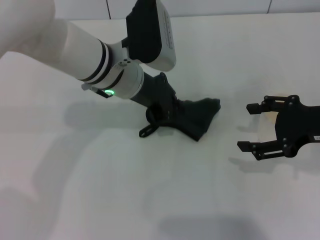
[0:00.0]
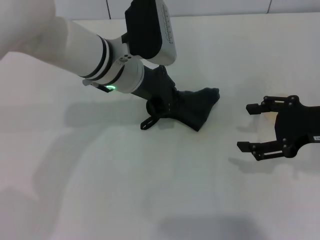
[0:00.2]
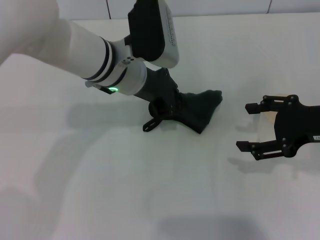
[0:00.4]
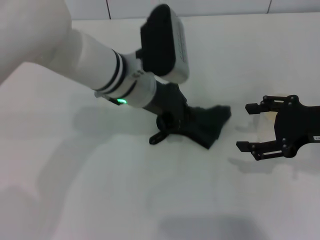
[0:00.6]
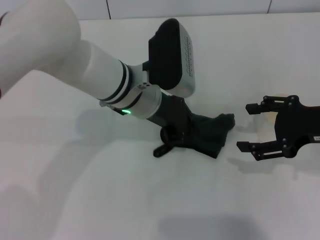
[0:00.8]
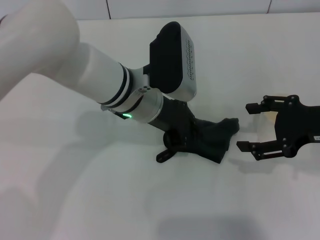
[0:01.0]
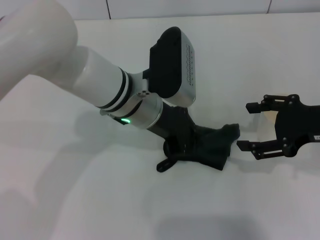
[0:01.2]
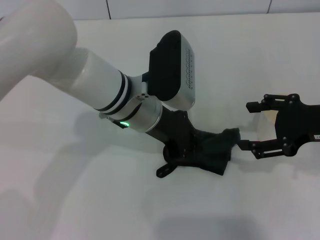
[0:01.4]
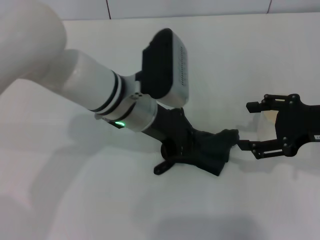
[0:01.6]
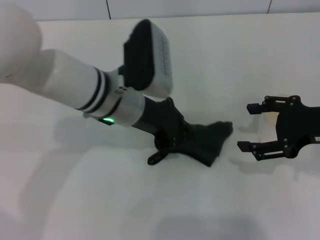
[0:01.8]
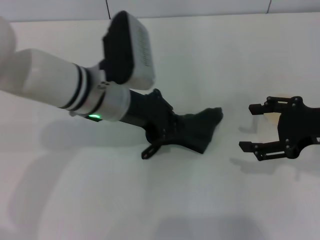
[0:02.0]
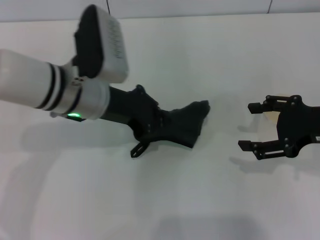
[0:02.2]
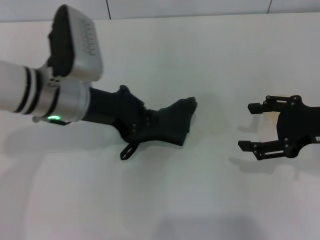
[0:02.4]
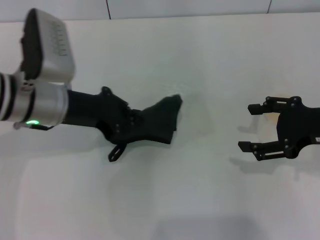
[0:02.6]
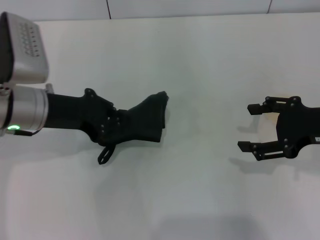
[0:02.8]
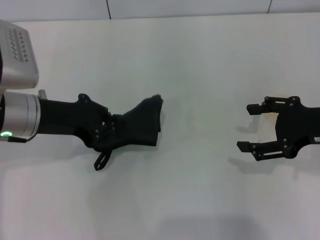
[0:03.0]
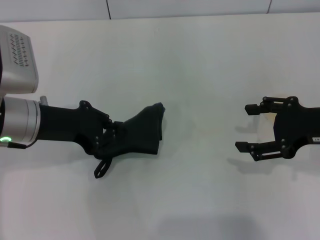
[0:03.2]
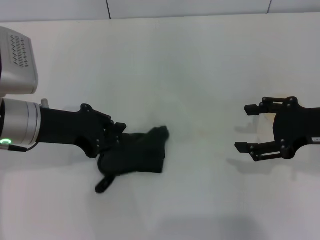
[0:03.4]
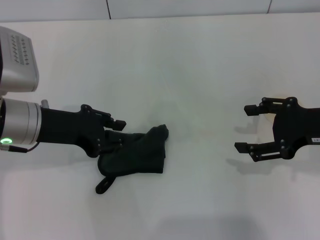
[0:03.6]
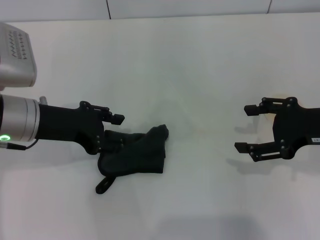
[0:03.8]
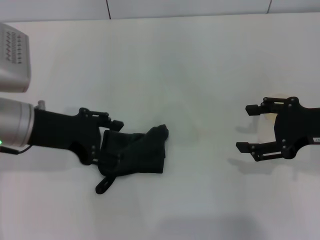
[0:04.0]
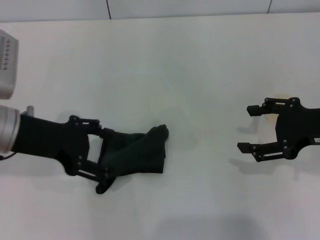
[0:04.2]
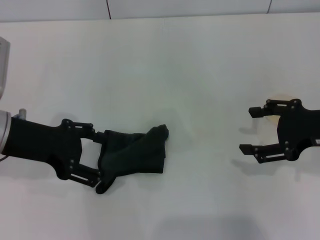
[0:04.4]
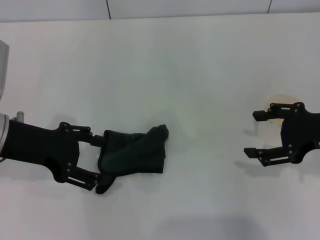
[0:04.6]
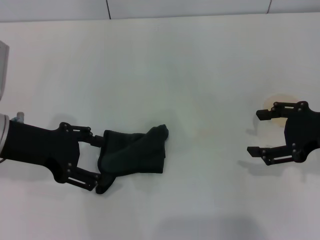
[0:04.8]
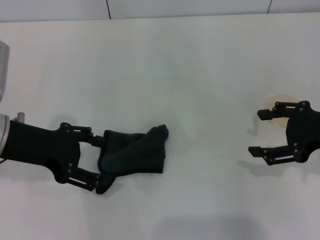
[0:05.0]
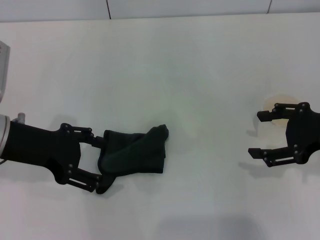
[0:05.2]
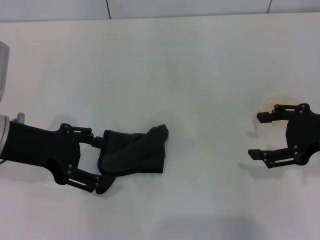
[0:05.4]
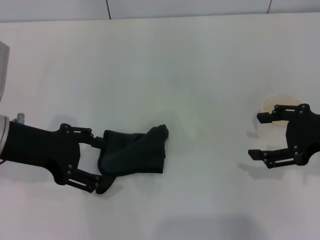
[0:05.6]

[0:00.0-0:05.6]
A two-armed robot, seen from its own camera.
Step, 0:00.0 to 0:03.0: Wipe the stains off the table with the left gripper.
Step, 0:03.2 to 0:03.8: Place the rag on the table with the left gripper.
0:01.4 to 0:02.8: The left gripper is displaced to the left by approximately 15 cm.
0:02.8 to 0:04.2: The left gripper opens up.
0:04.2 to 0:05.6: The two grippers keep their place.

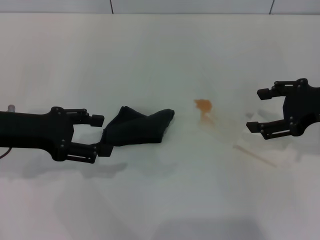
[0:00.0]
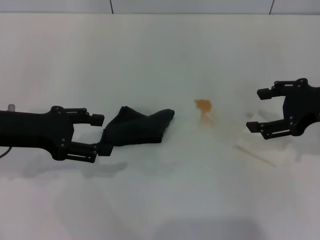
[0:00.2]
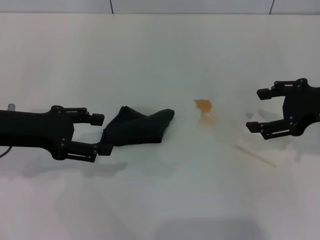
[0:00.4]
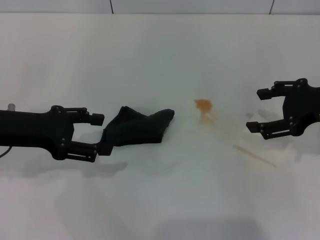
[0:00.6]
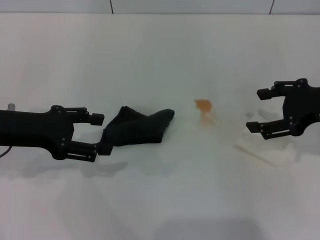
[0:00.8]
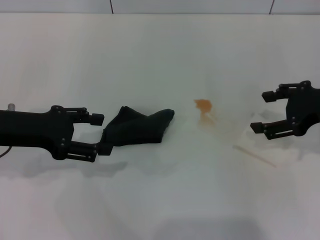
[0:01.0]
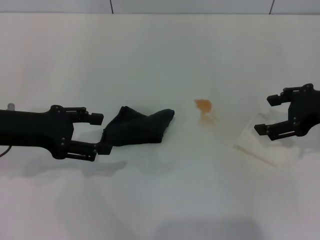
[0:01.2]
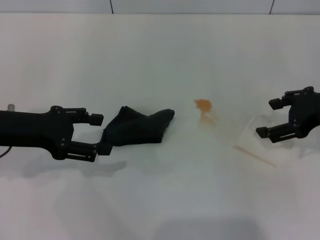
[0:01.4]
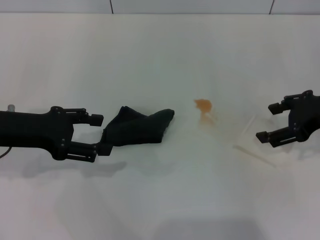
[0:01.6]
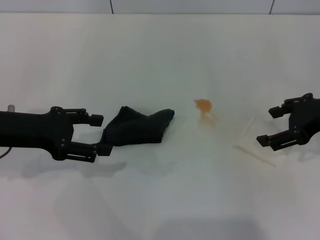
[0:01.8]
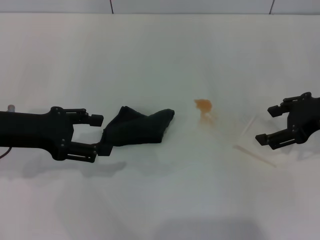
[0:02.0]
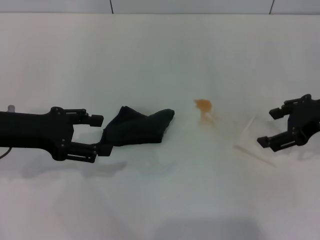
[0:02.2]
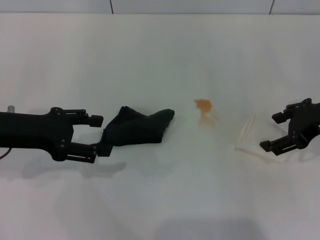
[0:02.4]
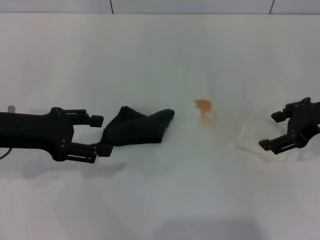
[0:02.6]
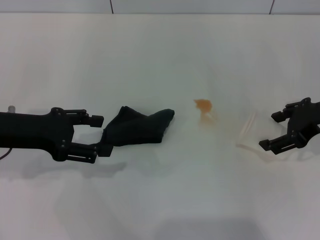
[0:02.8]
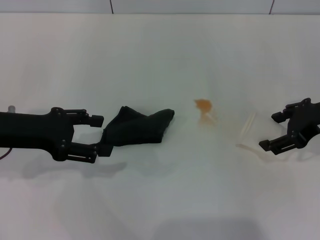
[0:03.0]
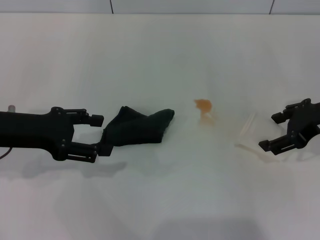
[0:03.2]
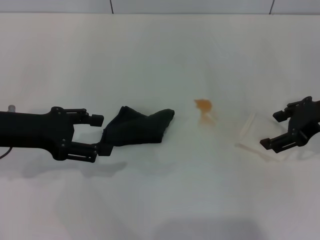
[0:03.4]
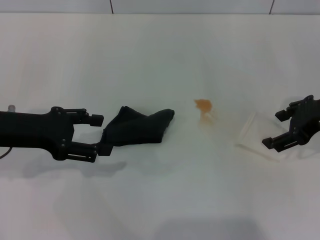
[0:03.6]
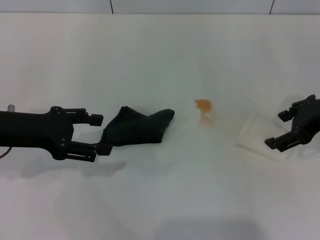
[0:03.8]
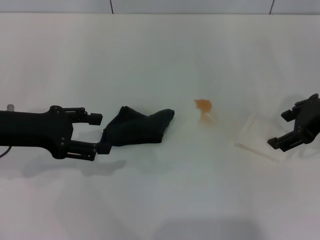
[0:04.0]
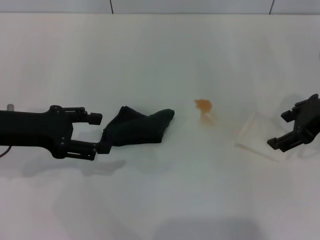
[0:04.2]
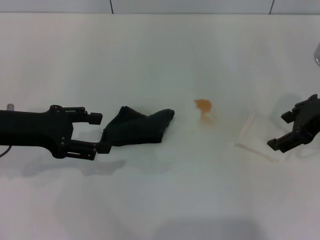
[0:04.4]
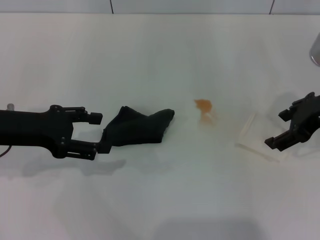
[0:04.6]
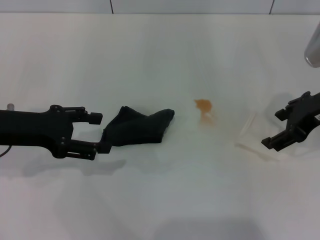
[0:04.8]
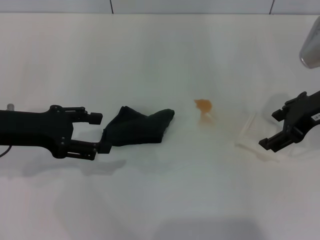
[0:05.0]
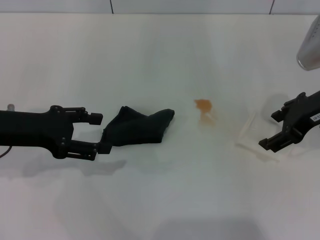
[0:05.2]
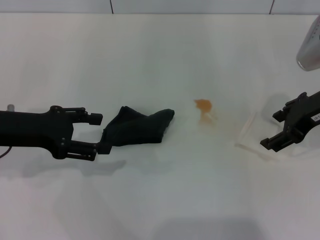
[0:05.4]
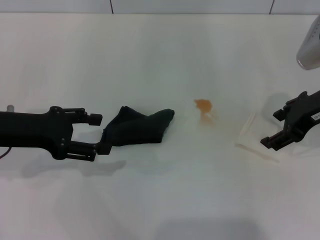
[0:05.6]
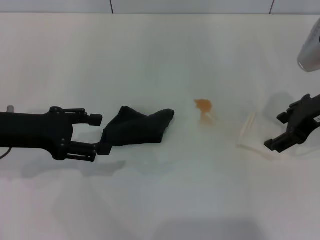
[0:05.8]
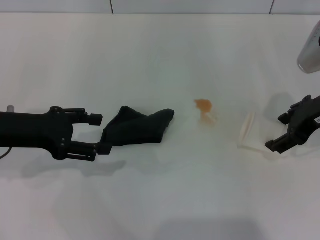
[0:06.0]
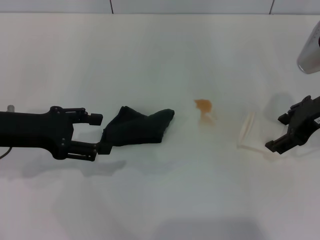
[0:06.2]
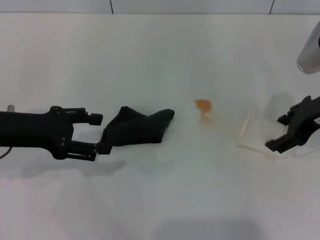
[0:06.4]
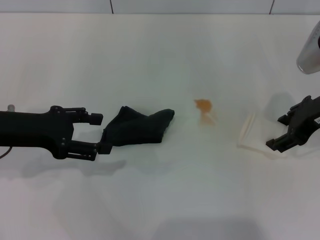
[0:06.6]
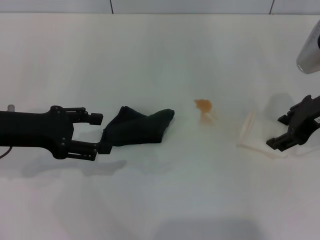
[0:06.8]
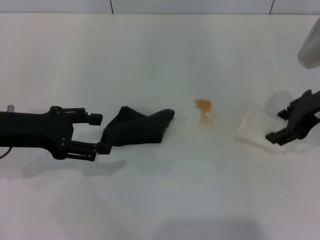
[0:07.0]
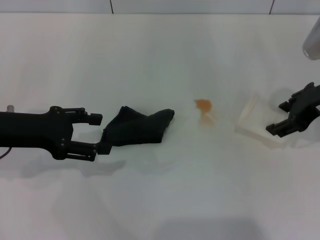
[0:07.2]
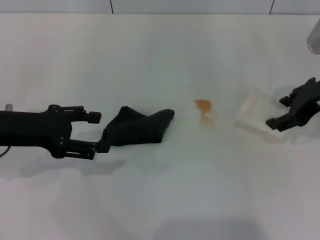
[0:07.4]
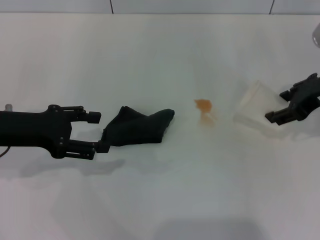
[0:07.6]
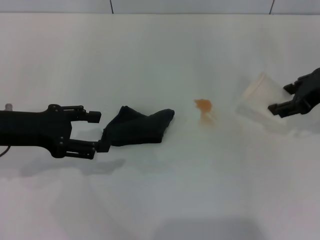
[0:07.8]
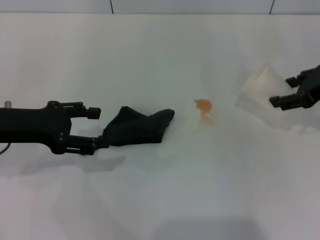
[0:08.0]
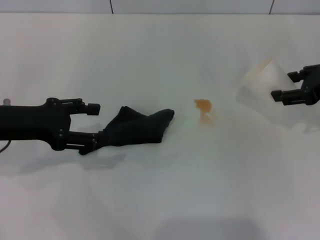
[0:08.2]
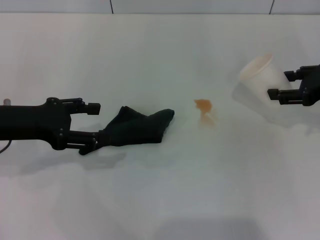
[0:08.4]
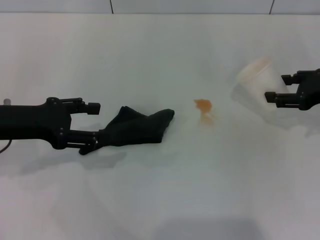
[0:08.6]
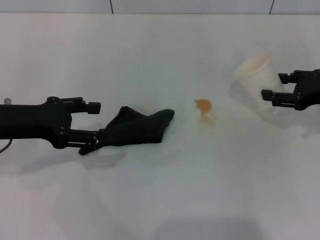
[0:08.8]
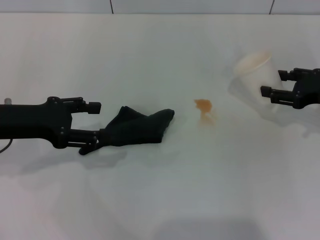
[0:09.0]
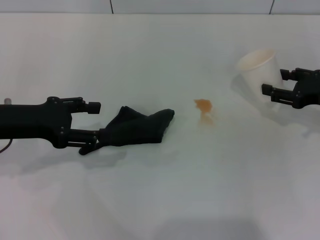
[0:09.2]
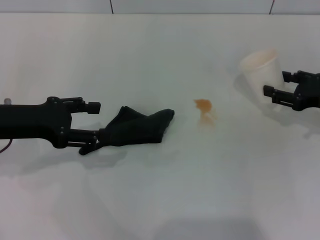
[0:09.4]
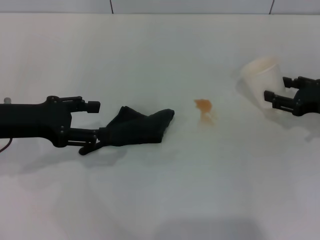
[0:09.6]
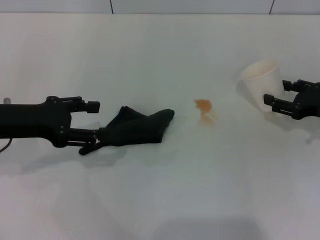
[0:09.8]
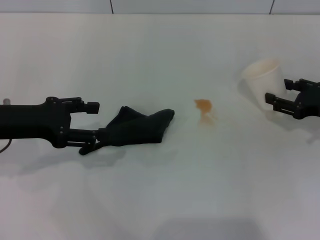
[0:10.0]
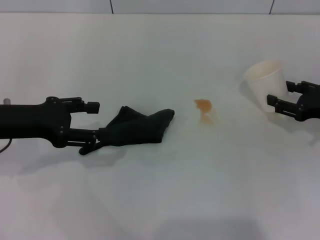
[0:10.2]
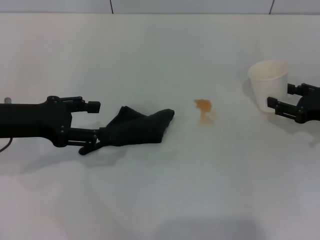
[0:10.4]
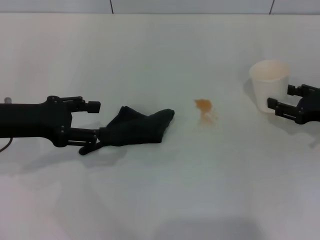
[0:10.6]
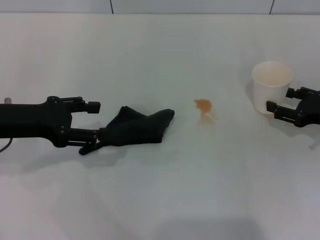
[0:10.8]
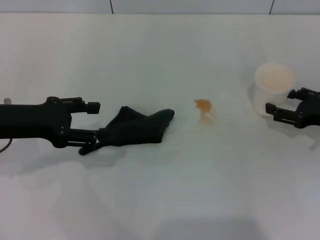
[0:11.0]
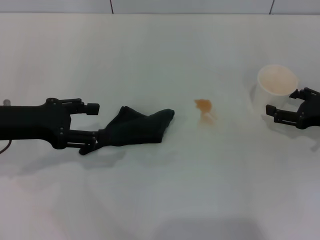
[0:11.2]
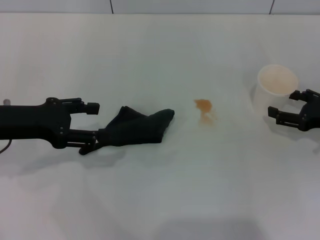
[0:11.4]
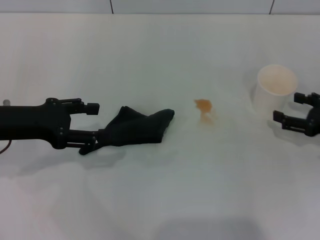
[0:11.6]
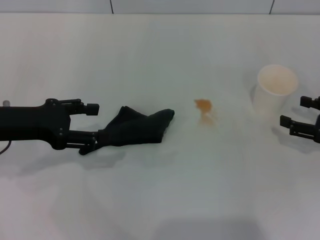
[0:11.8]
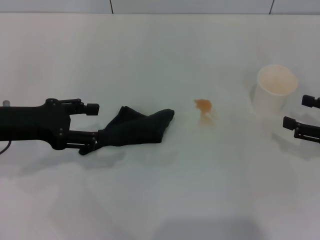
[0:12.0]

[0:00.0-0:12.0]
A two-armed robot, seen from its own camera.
Step, 0:00.0 to 0:06.4: Grasp the paper cup with the right gripper.
0:00.0 to 0:01.6: There are only small adjustments of the grippers.
0:01.6 to 0:06.0: The grippers stay close to where they were, moving slightly.
0:06.0 to 0:07.6: The right gripper closes.
0:07.6 to 0:09.0: The right gripper shifts some 10 cm downward and to the right.
0:09.0 to 0:10.4: The grippers stay close to where they were, moving slightly.
0:10.4 to 0:12.0: The right gripper is displaced backward by about 5 cm, and opens its fingers.

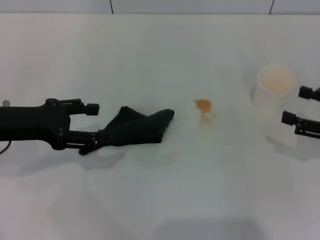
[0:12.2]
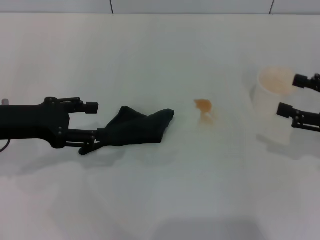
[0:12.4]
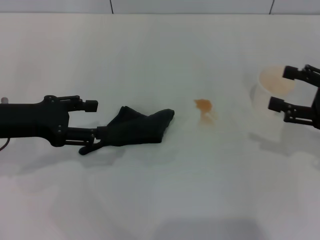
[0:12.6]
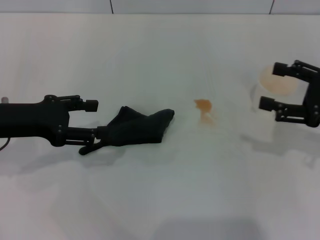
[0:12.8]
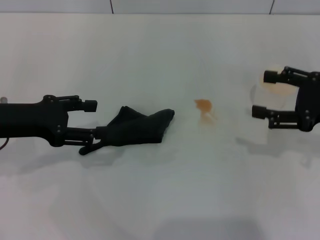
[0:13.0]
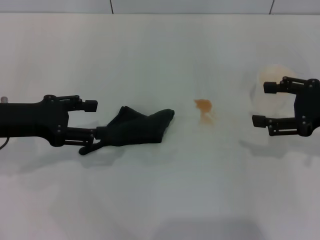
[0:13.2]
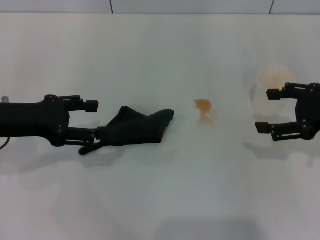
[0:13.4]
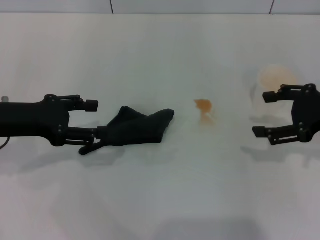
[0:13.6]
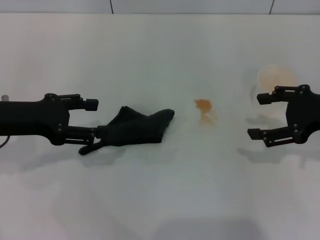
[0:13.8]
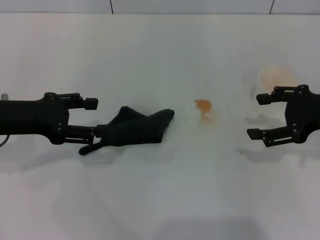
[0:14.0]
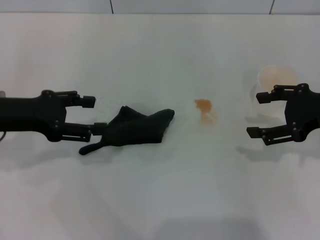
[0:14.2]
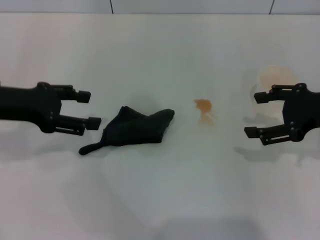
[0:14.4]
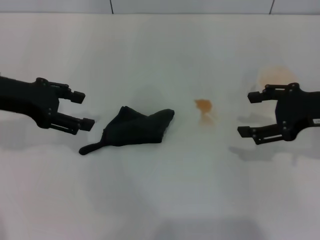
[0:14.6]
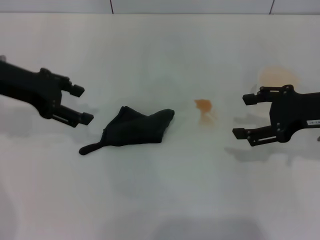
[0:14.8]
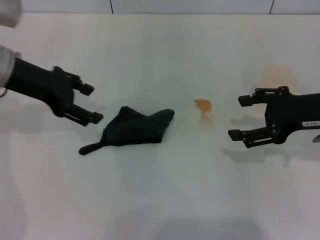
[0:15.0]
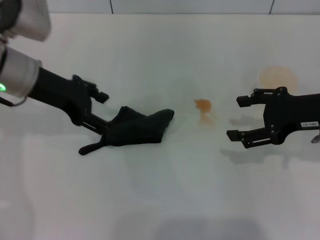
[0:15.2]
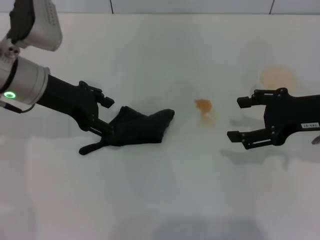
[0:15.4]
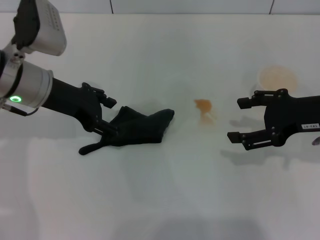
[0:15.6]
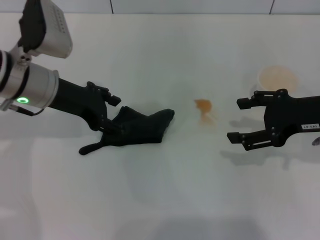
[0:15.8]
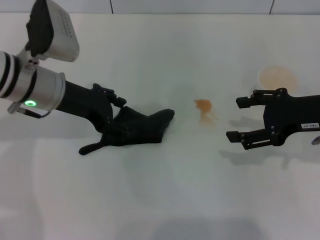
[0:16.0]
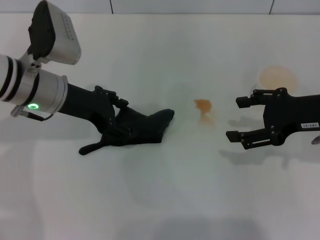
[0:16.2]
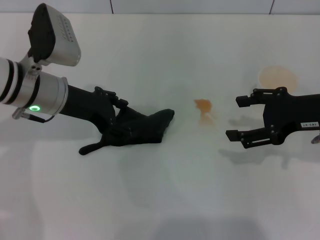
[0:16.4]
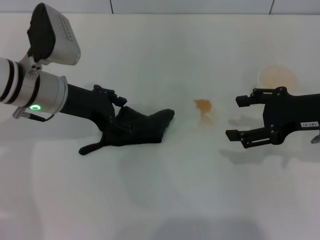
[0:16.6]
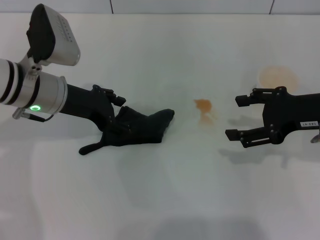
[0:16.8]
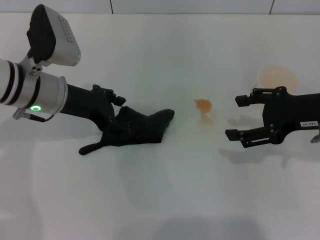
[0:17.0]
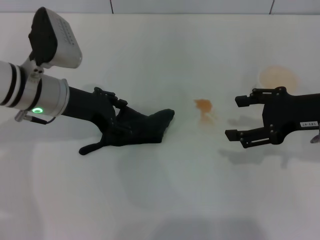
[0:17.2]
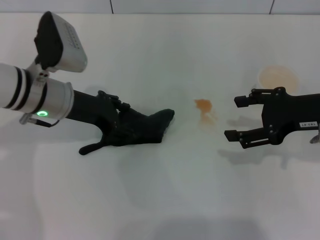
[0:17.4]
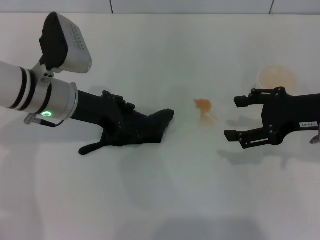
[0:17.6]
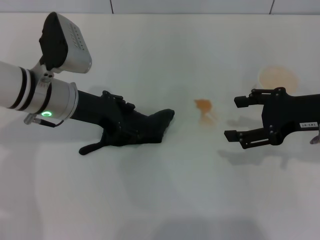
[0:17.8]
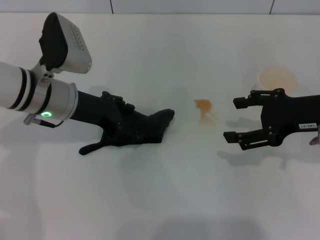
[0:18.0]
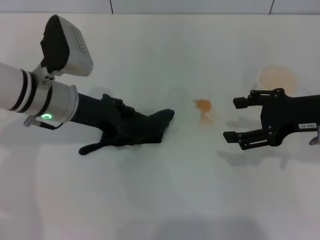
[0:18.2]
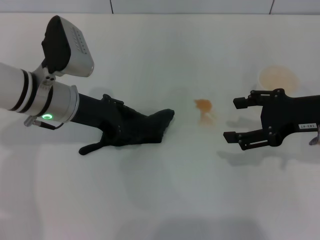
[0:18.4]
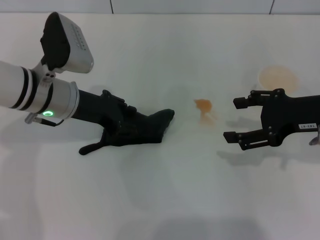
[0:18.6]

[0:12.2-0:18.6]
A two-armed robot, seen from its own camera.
0:12.2 to 0:13.8: The right gripper shifts about 10 cm upward and to the left.
0:13.8 to 0:15.4: The left gripper is displaced to the right and forward by roughly 10 cm.
0:15.4 to 0:18.6: There are only small adjustments of the grippers.
